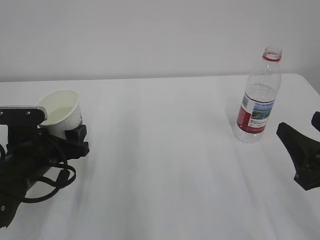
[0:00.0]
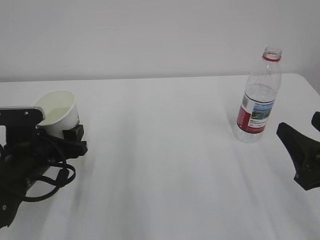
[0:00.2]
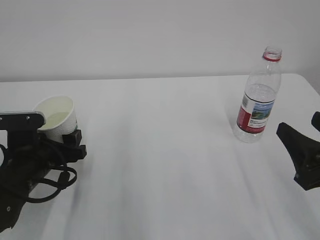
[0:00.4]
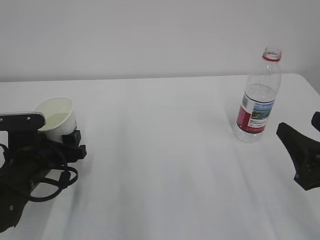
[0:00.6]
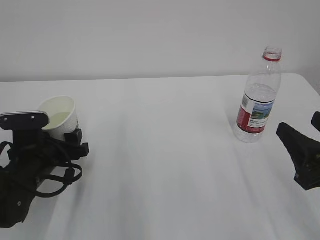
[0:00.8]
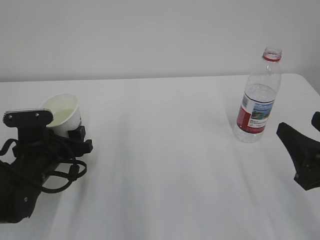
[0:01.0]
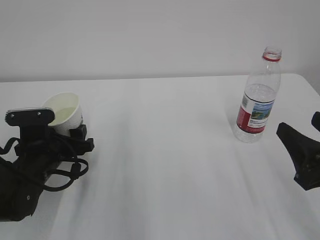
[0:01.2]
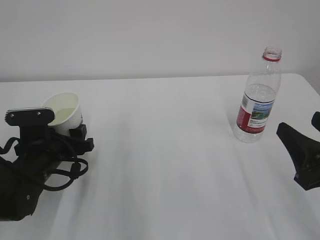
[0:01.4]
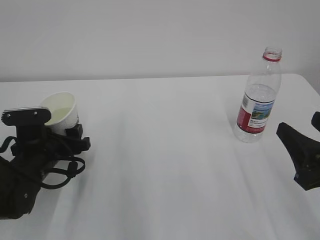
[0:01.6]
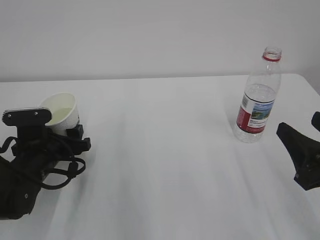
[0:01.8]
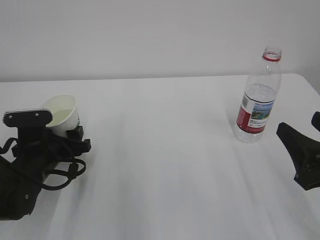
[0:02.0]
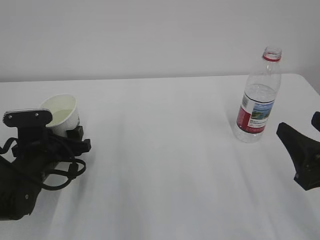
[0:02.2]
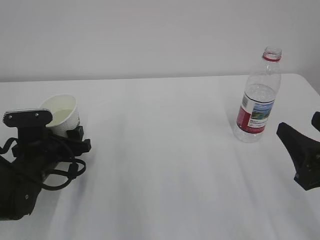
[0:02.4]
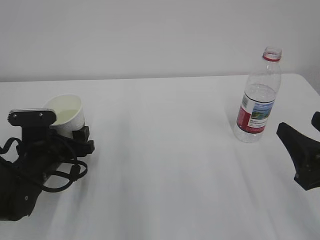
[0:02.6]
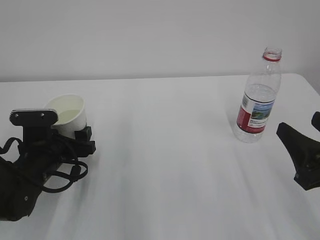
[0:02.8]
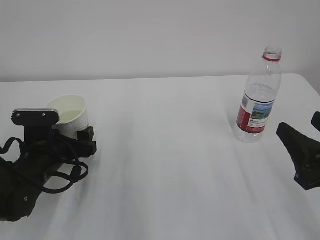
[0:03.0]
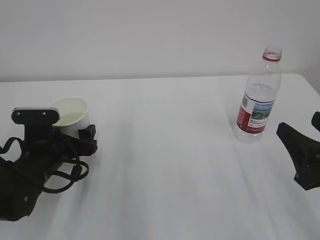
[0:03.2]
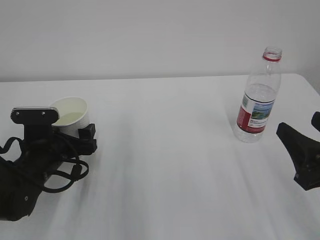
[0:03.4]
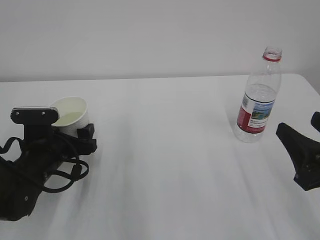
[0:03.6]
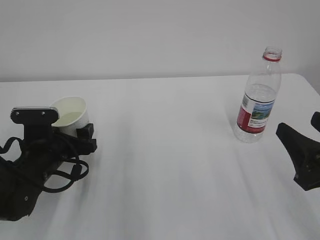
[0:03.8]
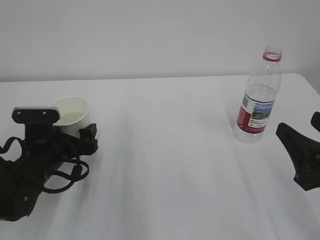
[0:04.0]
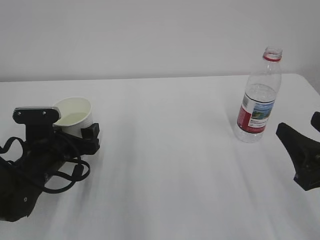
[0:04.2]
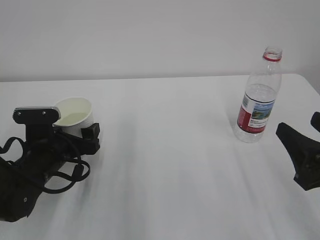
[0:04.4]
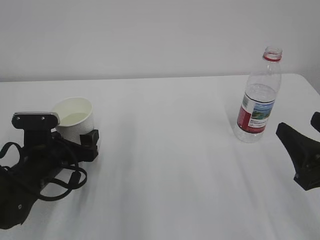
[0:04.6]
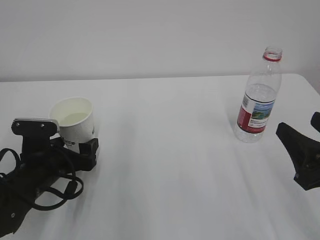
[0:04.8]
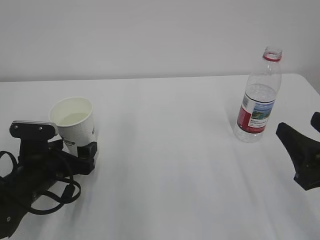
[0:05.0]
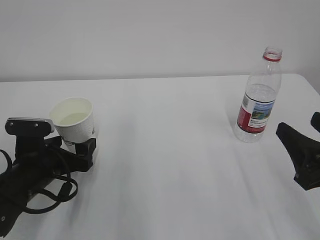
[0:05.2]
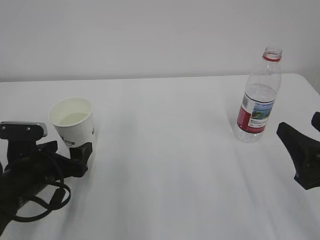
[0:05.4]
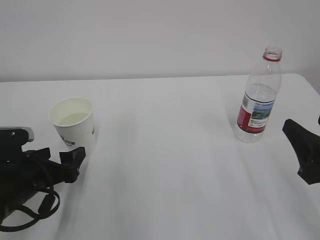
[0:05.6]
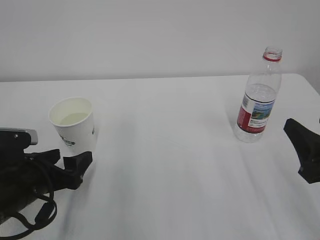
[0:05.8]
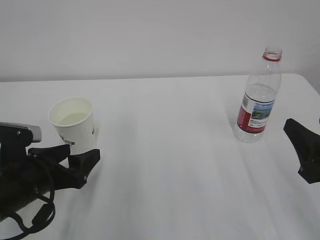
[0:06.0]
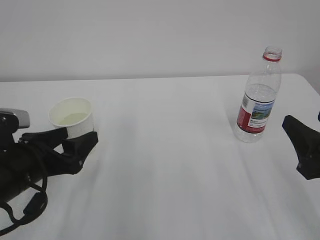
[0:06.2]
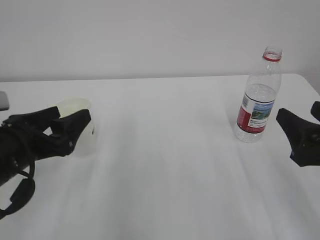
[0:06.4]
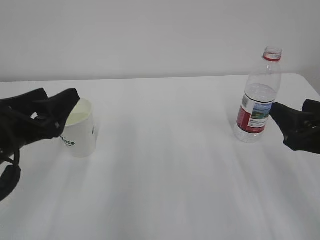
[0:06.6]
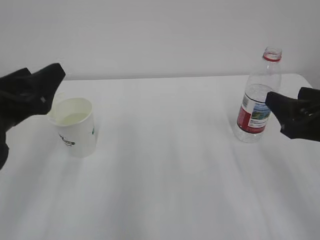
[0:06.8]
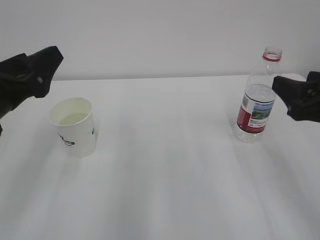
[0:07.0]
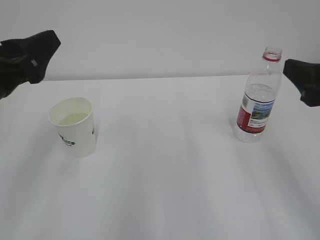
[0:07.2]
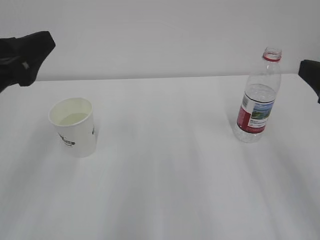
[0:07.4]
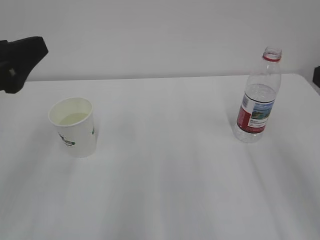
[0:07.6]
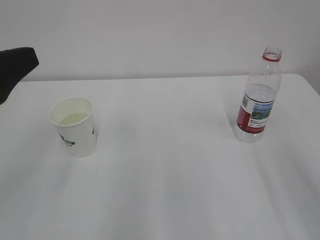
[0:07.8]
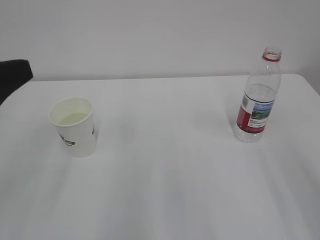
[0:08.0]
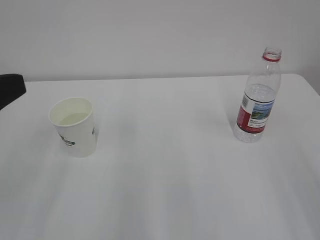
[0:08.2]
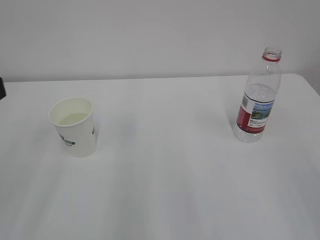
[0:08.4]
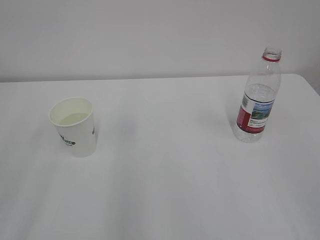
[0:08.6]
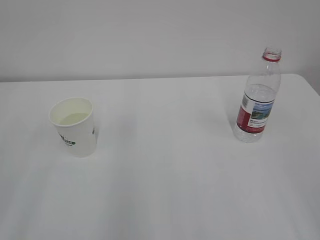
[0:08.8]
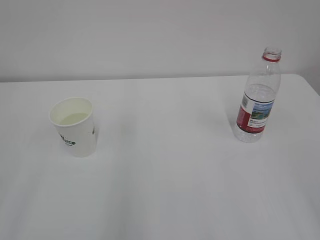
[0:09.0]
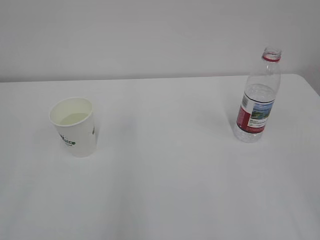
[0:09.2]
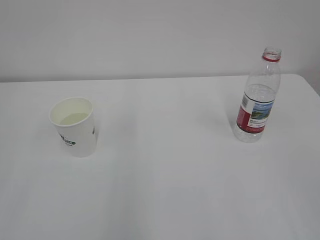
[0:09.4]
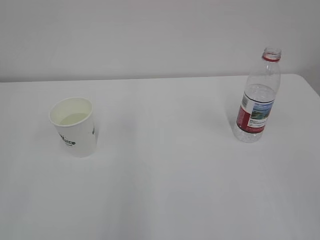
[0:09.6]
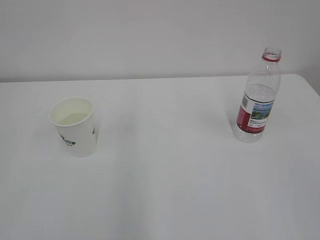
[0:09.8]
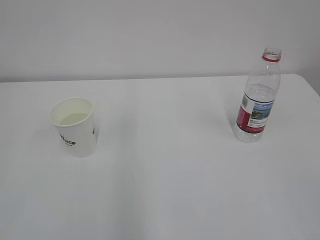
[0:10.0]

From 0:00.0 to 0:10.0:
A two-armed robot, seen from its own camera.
From 0:00.0 to 0:01.4: The grippers move only a little.
From 0:01.4 to 0:02.8: The two grippers keep their place.
From 0:02.8 to 0:04.2: The left gripper opens its fingers.
From 0:04.2 to 0:05.8: The left gripper shifts some 5 cm backward.
From 0:05.8 to 0:07.2: The left gripper goes roughly 15 cm upward; the right gripper travels upward by about 10 cm.
From 0:07.2 to 0:08.6: The left gripper moves backward and to the left, some 15 cm, while the right gripper goes approximately 15 cm backward.

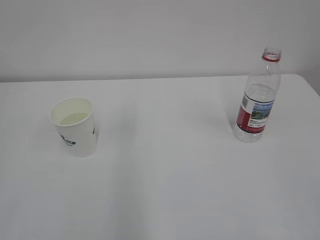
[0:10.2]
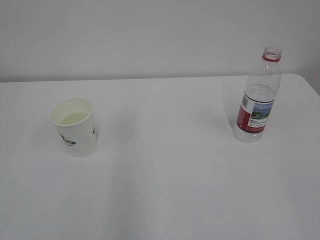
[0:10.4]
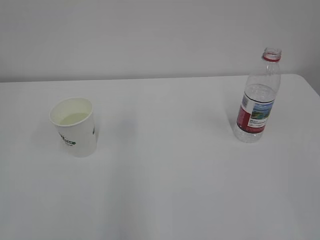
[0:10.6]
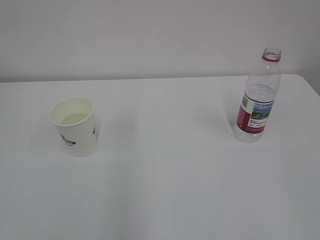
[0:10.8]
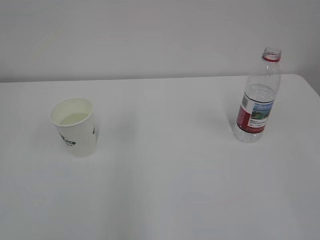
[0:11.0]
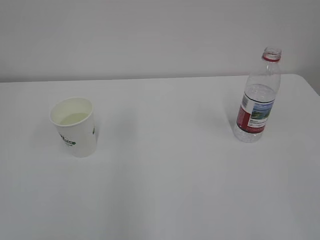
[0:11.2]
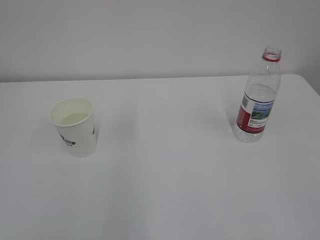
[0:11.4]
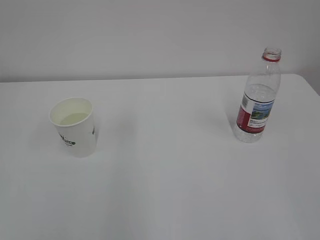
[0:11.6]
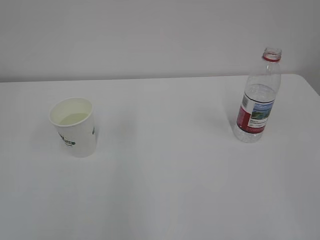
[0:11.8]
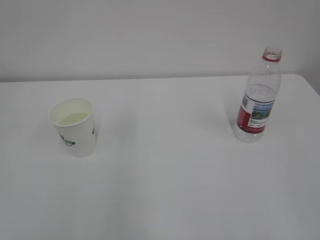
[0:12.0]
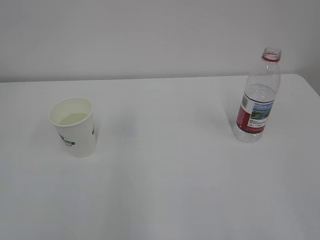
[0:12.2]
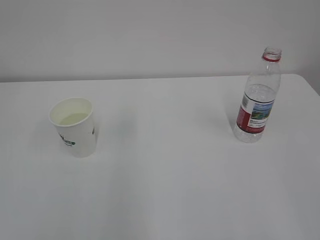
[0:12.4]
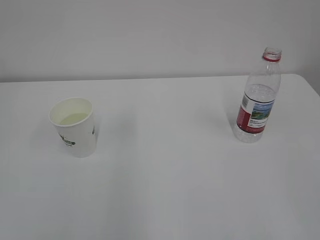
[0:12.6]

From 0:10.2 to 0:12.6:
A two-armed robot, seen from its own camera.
From 0:11.4 to 0:12.6: Both grippers stay put.
